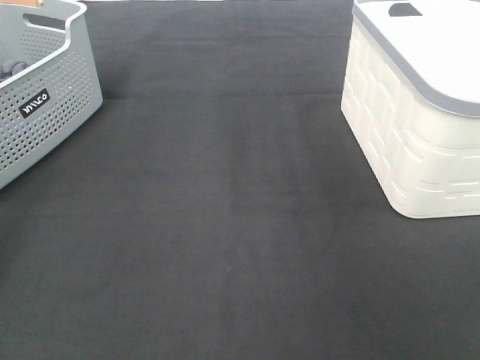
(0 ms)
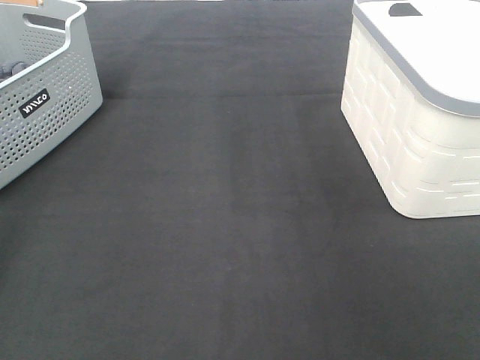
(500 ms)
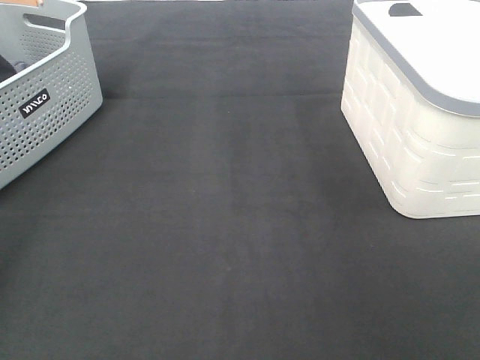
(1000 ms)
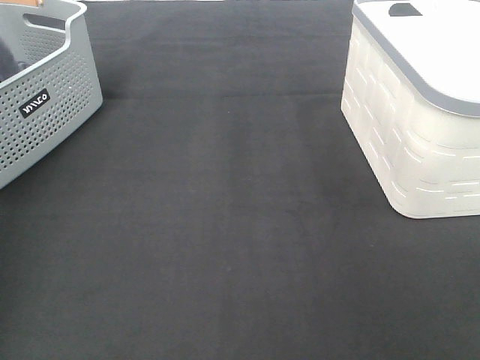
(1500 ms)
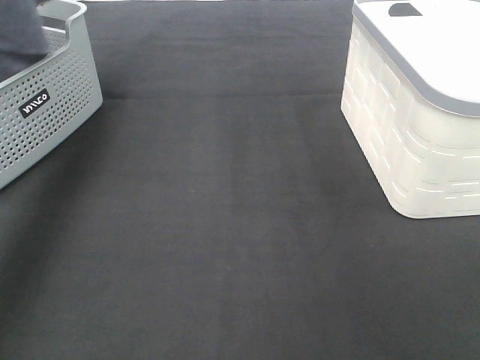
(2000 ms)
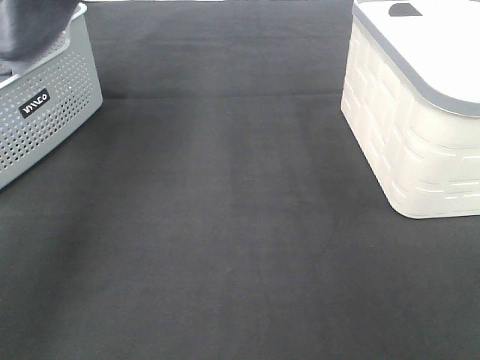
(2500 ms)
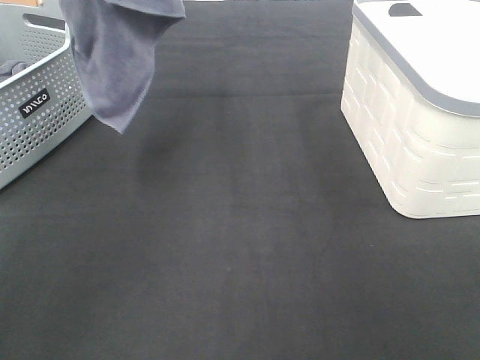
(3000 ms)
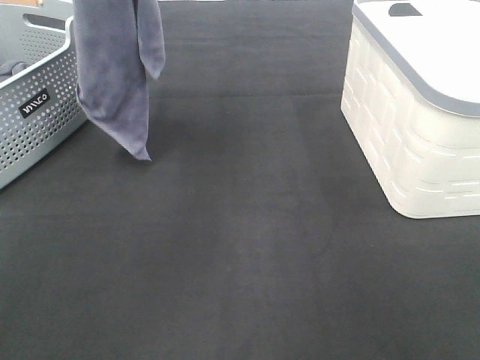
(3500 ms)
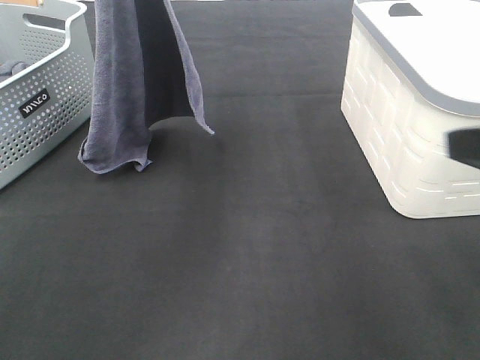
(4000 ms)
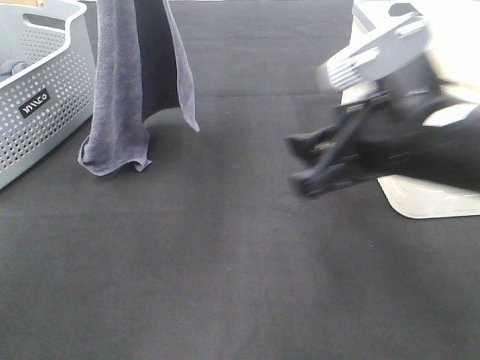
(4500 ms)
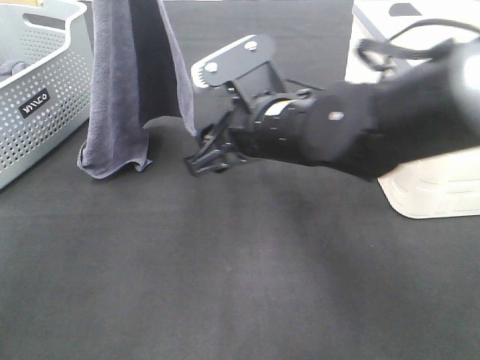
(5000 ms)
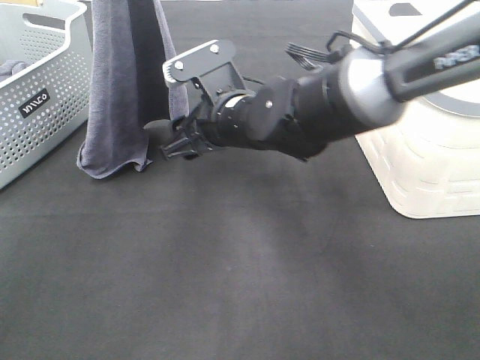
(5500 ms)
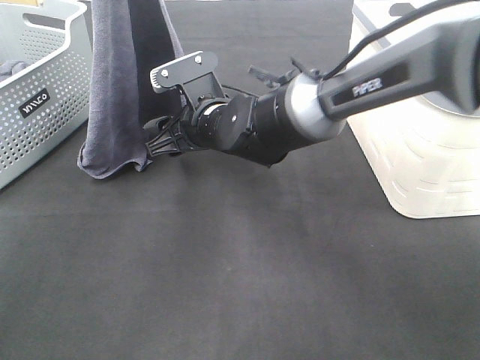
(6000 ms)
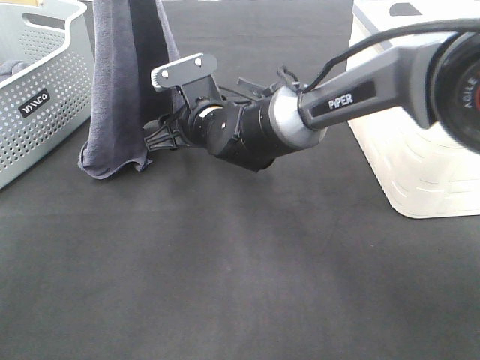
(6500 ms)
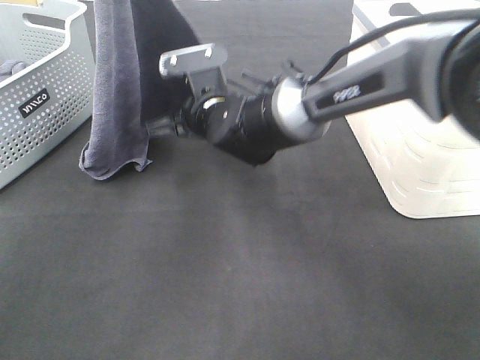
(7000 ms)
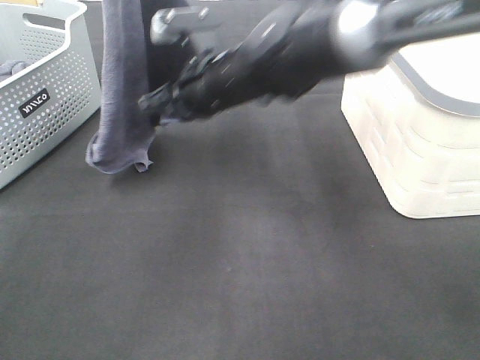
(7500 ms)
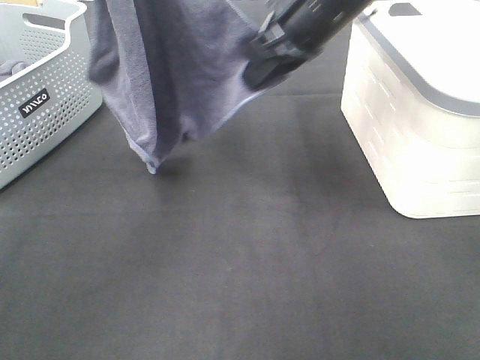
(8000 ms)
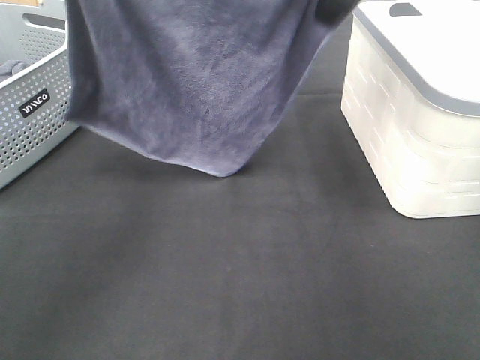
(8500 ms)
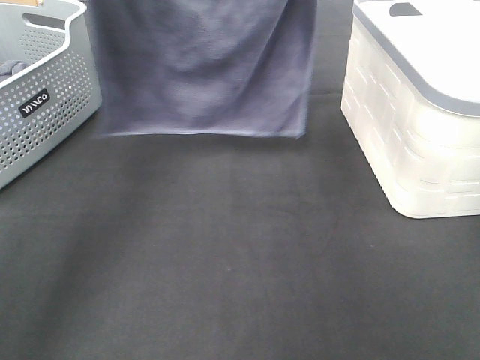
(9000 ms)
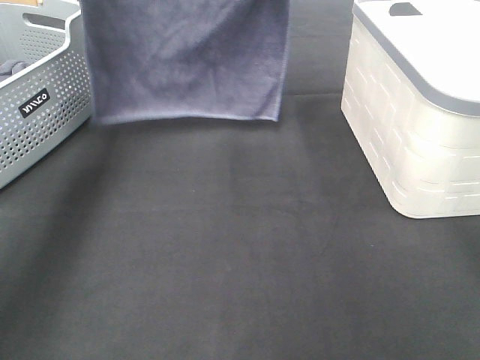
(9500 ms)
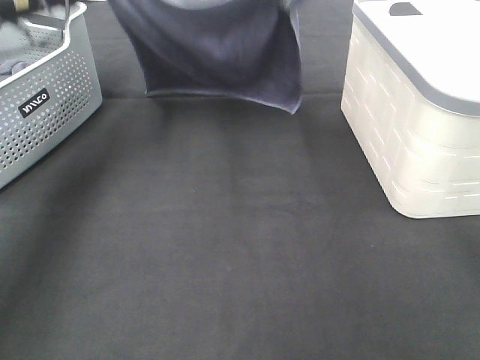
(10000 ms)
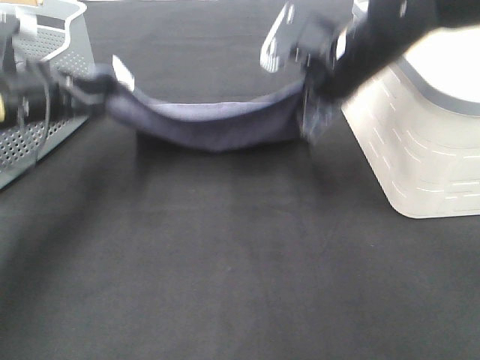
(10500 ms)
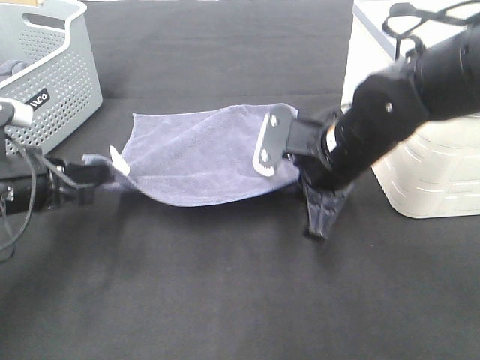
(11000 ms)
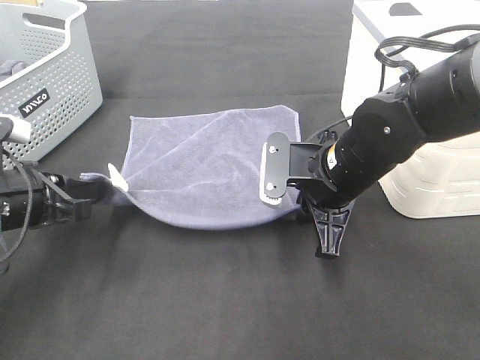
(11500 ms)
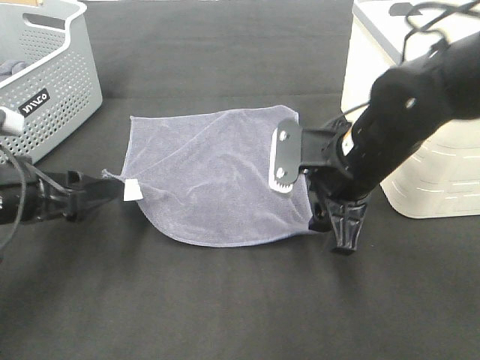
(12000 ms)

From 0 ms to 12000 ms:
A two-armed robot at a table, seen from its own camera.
Task of the whole recording: Remove the towel and place it.
Step, from 2000 ms to 5000 ms: Right hand: grab a corner of the grey towel and straighten it.
Step, from 5500 ms to 8000 ms: Left hand: spread the grey towel flat on the table.
Step, from 5500 ms to 8000 ms: Right hand: spread the grey towel flat on the table.
From 0 ms to 2000 ms: The left gripper travels upward and to the right by about 30 cm, and closes.
From 2000 ms to 4000 ms: The right gripper goes about 15 cm forward, while the left gripper is displaced to the right and downward by some 25 cm.
From 4000 ms to 6000 ms: The right gripper is displaced to the left, forward and downward by roughly 40 cm.
From 6000 ms to 8000 ms: The left gripper goes approximately 5 cm upward. Meanwhile the right gripper is displaced upward and to the right by approximately 20 cm, and closes.
From 8000 ms to 10000 ms: The left gripper shifts some 20 cm downward and forward. Meanwhile the right gripper travels forward by roughly 10 cm, and reaches roughly 10 cm upward, then returns.
From 10000 ms to 12000 ms: Both grippers travel together backward and downward, roughly 20 cm. The left gripper opens its fingers. Meanwhile the right gripper opens its fingers.

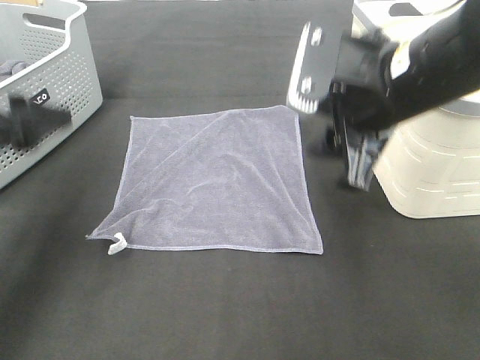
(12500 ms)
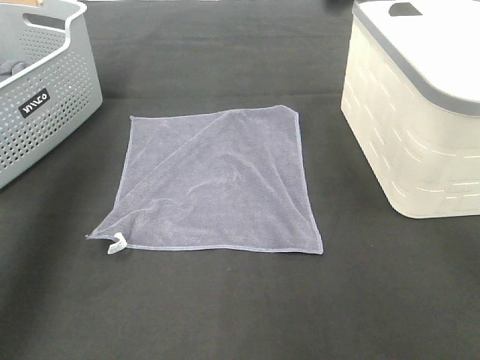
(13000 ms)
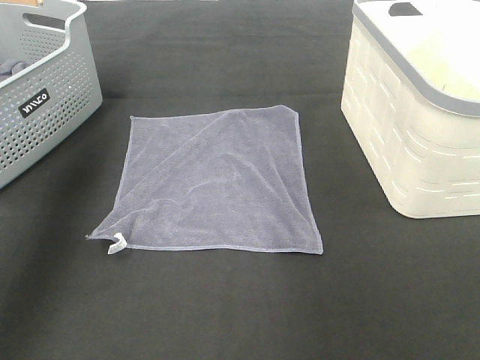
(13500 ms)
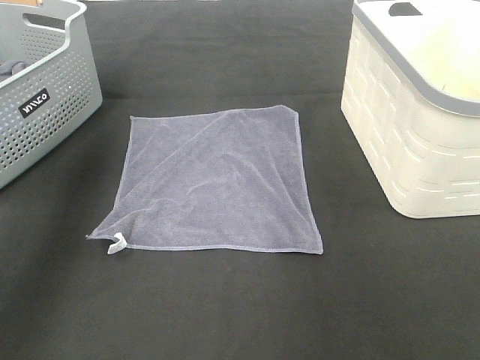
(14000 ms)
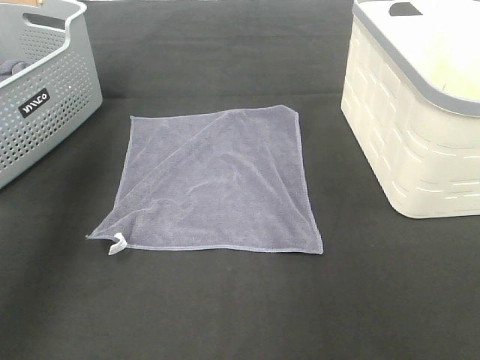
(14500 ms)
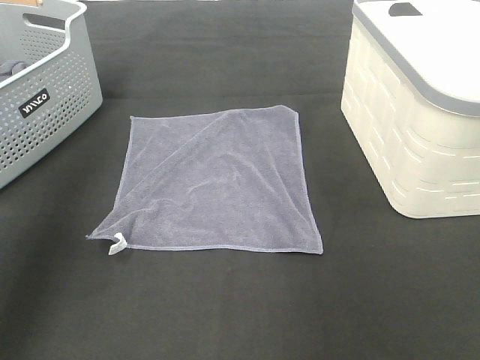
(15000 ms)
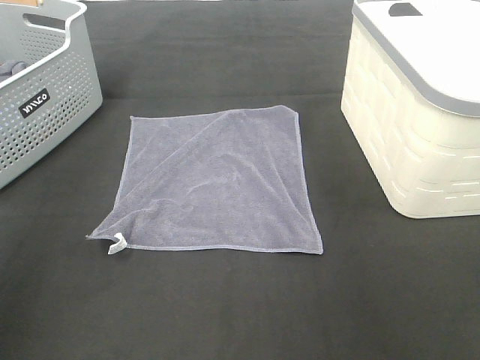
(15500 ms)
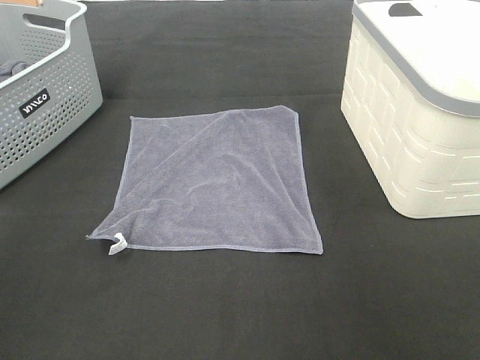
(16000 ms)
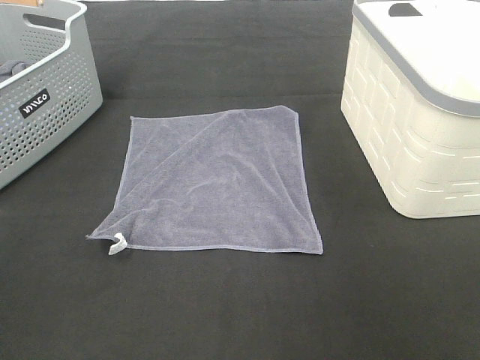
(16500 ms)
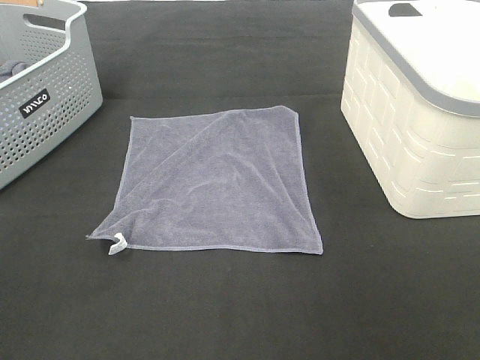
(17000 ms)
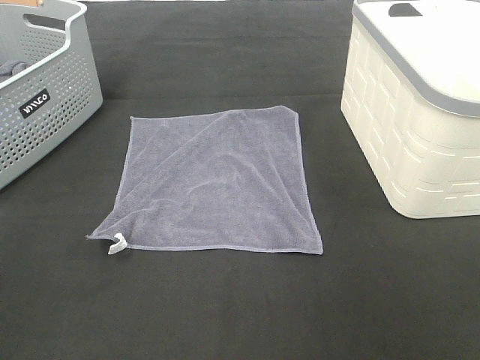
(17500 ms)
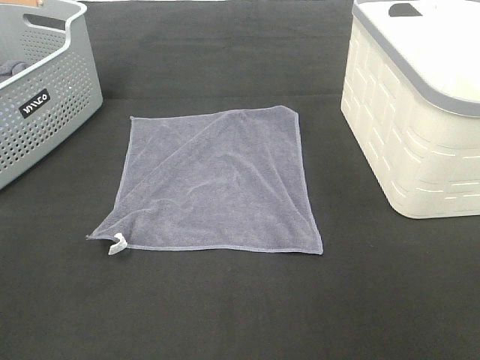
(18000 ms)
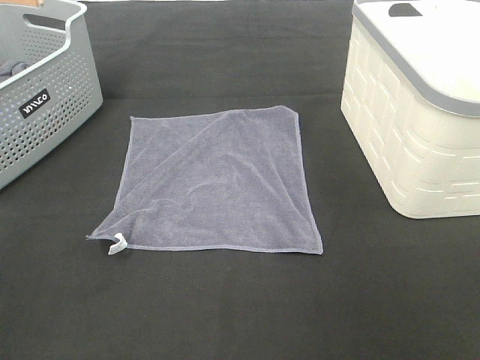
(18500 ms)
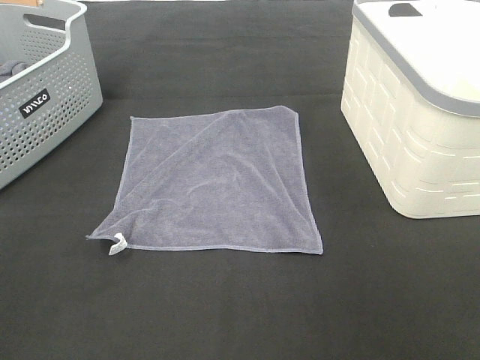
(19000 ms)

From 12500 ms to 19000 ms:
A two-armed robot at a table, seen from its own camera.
Task of the whole recording: Remove the towel and place it.
From 12500 ms to 14500 ms: The left gripper is displaced upward and forward by approximately 20 cm. Meanwhile the right gripper goes approximately 25 cm upward, to the right and forward.
From 14500 ms to 17000 ms: The left gripper travels backward by roughly 35 cm.
From 17000 ms to 19000 ms: Both grippers stay put.

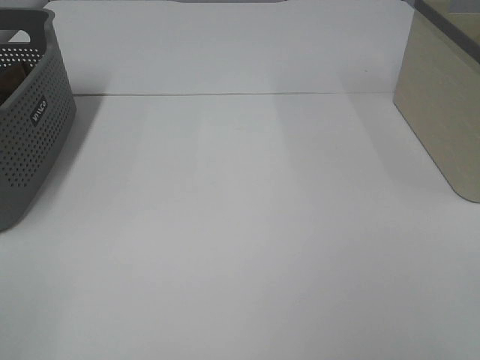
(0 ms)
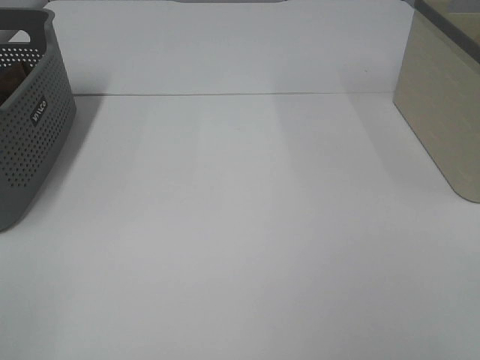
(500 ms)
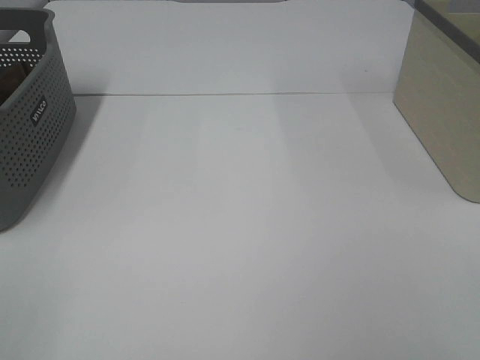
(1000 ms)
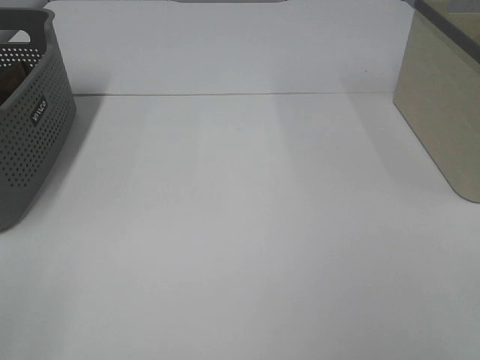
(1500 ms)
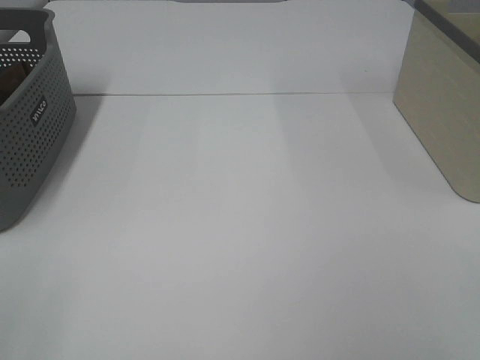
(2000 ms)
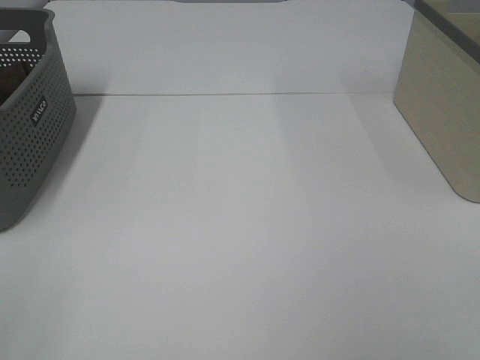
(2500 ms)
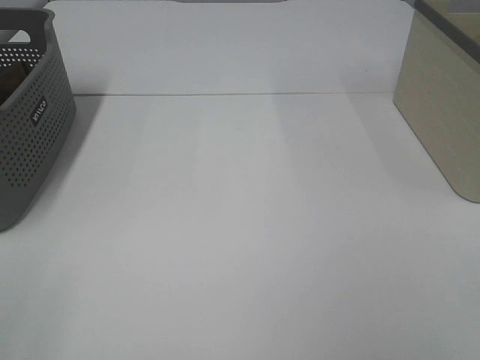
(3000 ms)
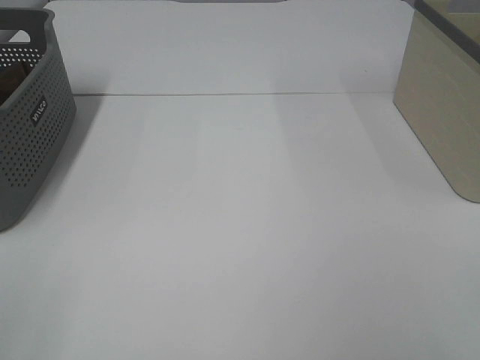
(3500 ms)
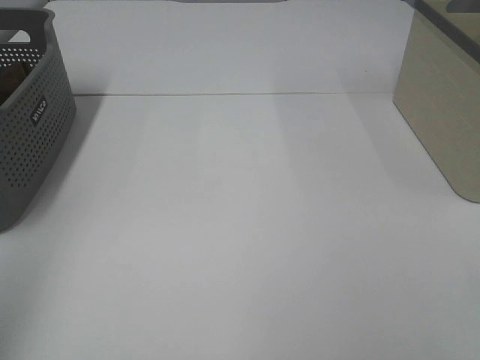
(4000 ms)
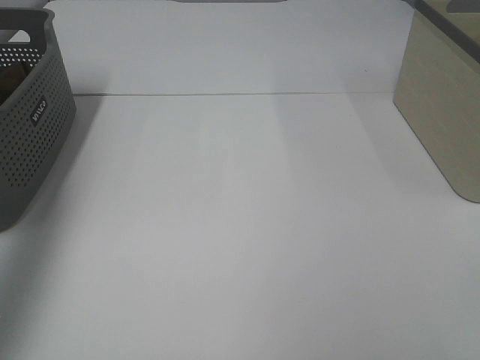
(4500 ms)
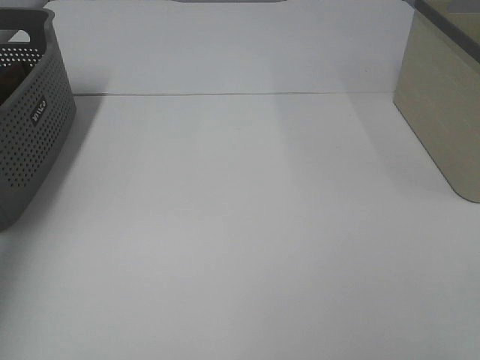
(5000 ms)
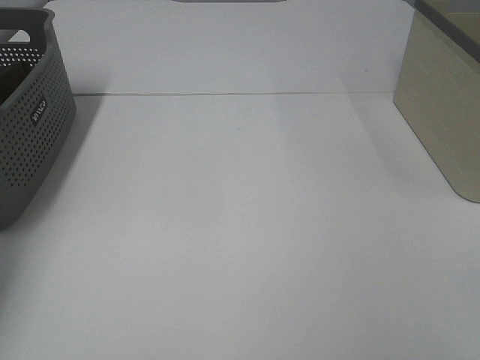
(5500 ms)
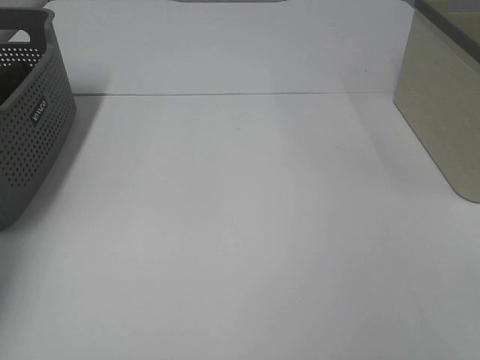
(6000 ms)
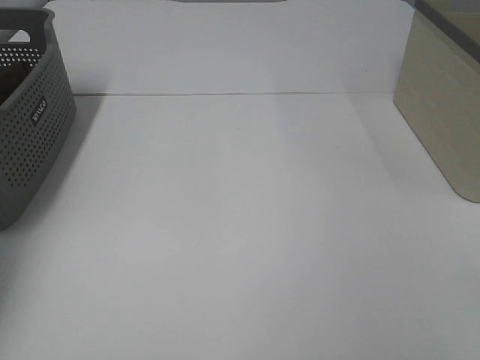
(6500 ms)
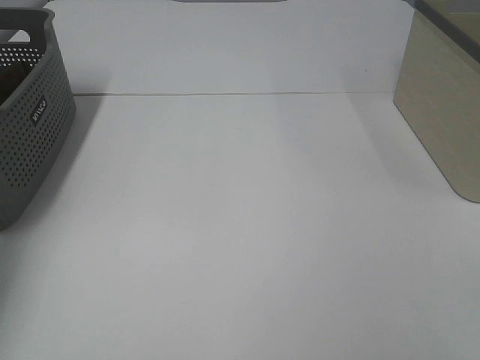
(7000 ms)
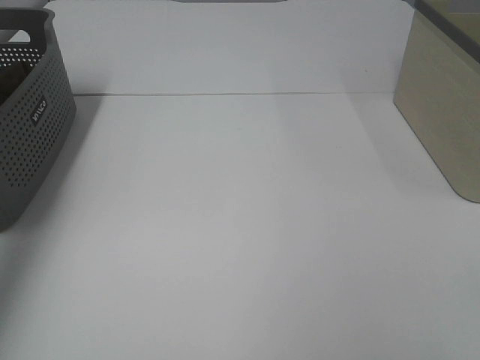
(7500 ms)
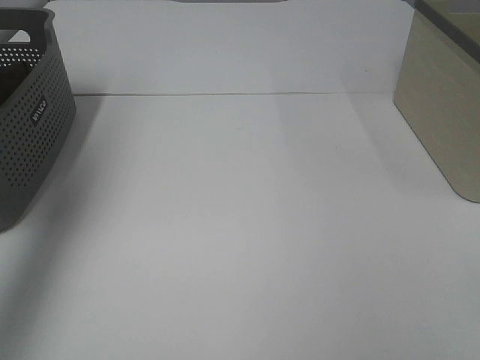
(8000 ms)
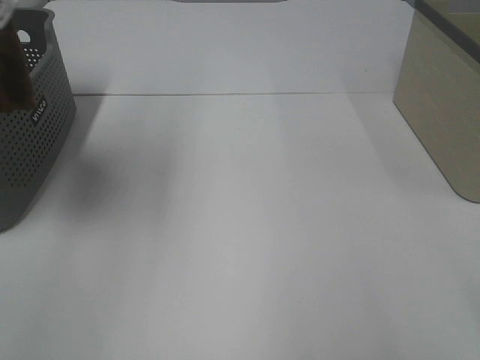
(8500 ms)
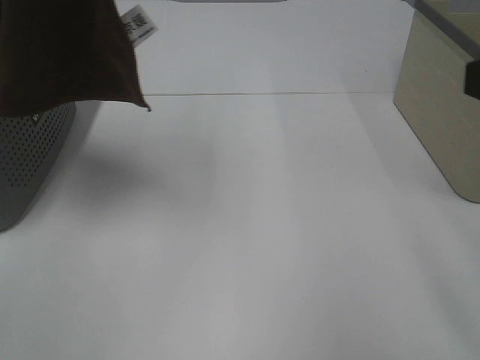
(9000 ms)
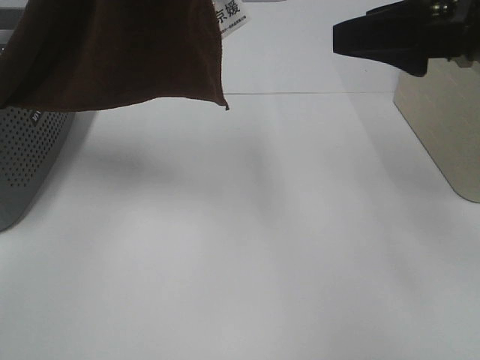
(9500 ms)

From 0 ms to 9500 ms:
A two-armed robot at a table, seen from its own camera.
Task of the whole recording: Remove the towel and place it.
From 0 ms to 2000 ms: Both grippers stay put.
From 4000 ms to 5500 ms: The left gripper heads forward, covering some 40 cm.
From 7500 ms to 9500 ms: The left gripper heads to the right, covering some 25 cm; the right gripper shifts roughly 25 cm forward.
